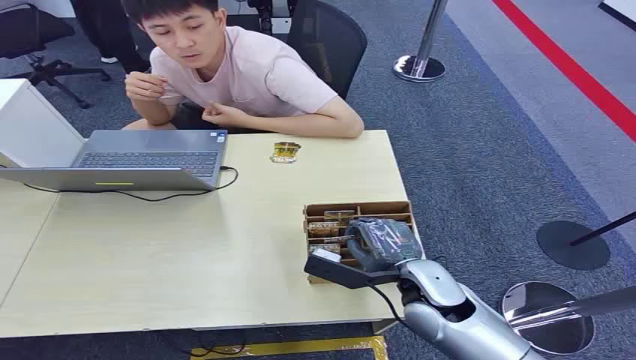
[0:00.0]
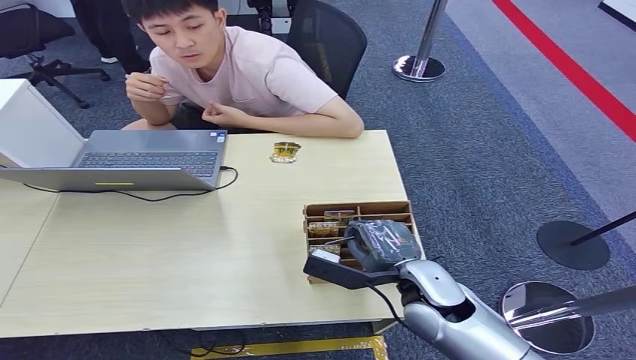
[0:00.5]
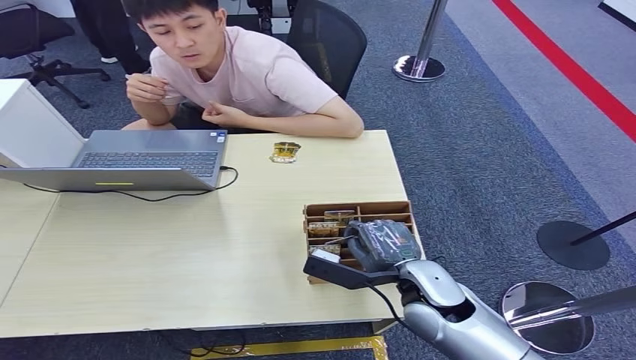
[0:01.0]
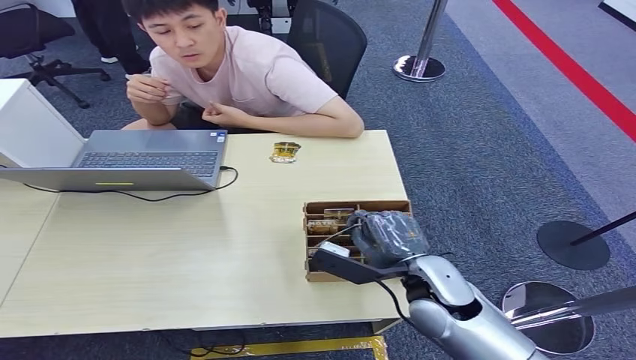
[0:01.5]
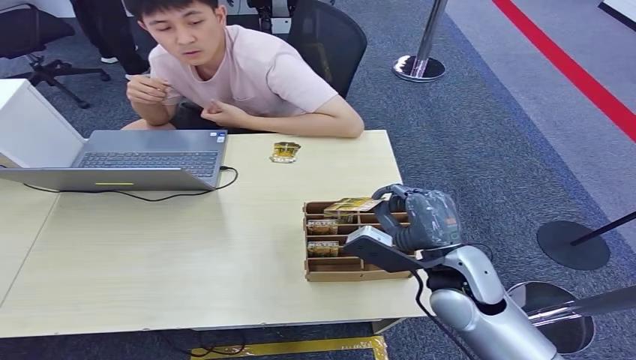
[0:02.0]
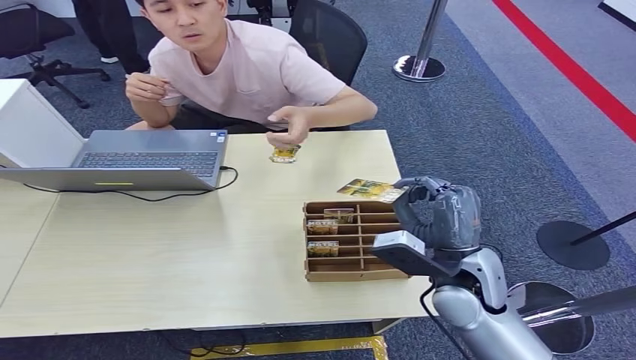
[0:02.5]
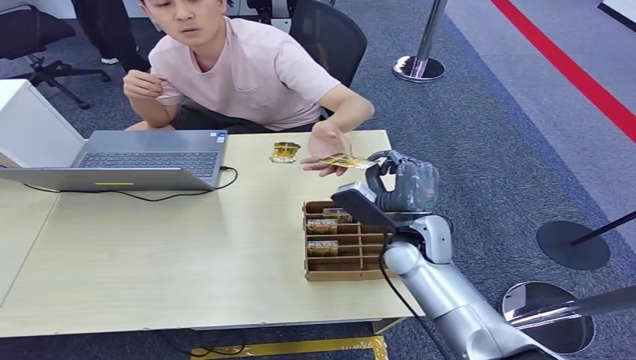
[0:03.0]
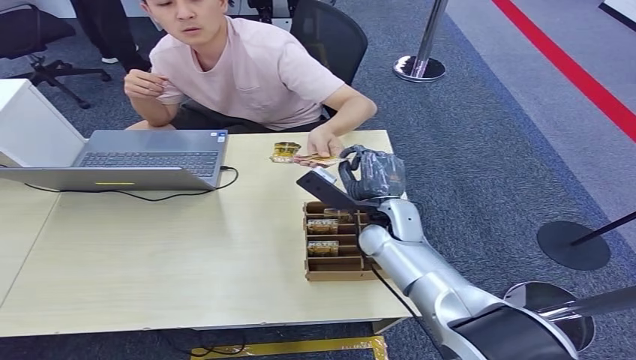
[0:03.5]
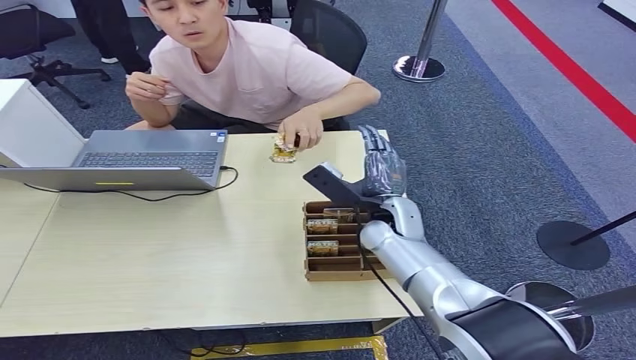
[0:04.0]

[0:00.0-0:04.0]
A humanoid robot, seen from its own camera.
Step, 0:00.0 to 0:01.5: Pick up the room card from the card holder.
Step, 0:02.0 to 0:04.0: Hand the room card to the target.
0:02.0 to 0:04.0: The right hand is displaced forward and to the left by about 15 cm.
